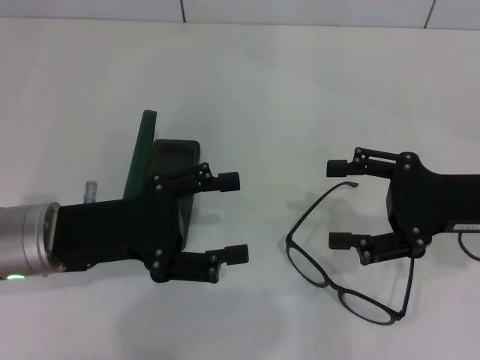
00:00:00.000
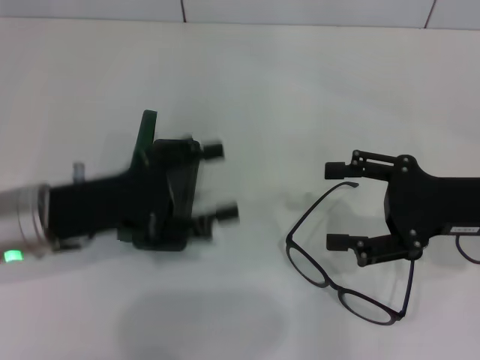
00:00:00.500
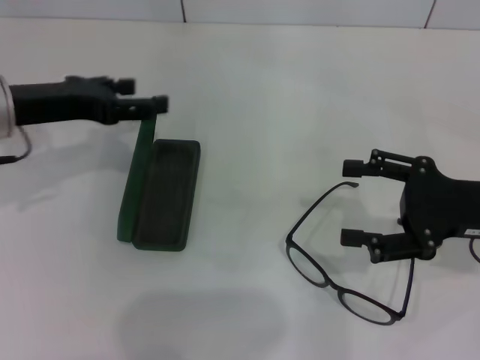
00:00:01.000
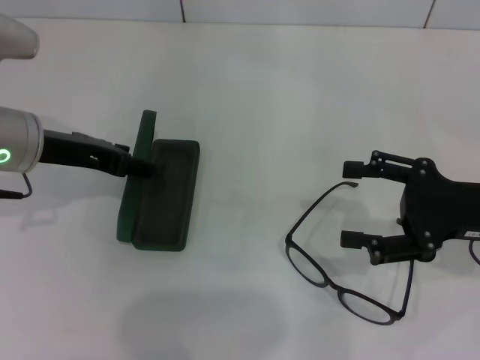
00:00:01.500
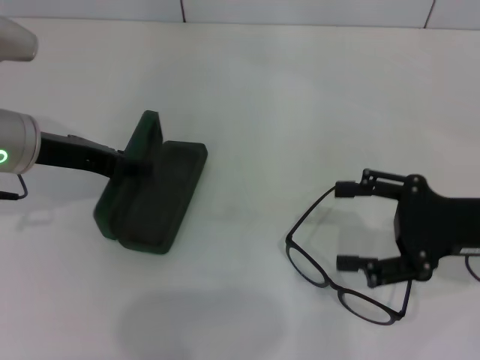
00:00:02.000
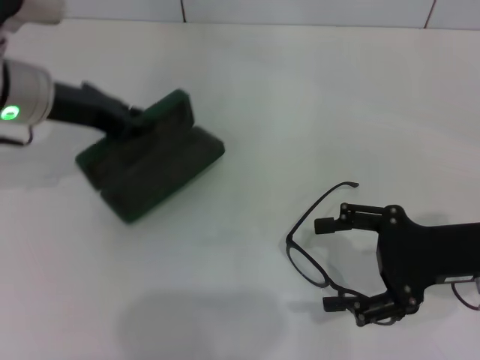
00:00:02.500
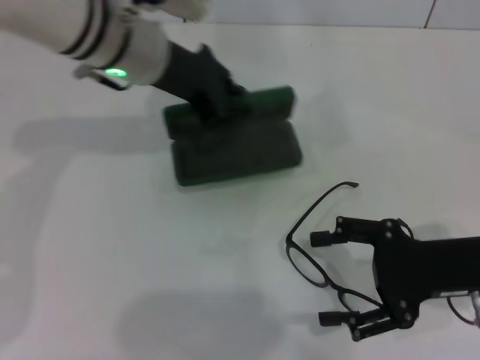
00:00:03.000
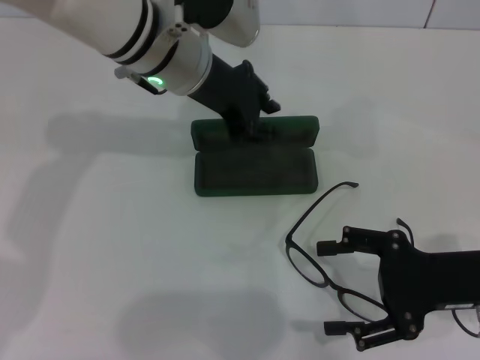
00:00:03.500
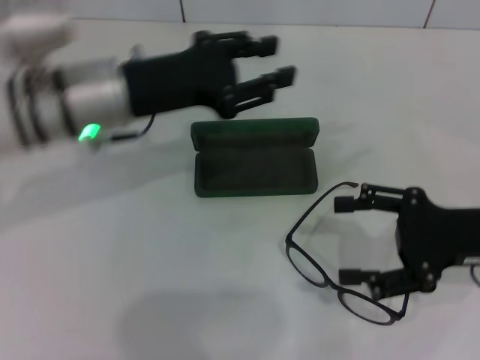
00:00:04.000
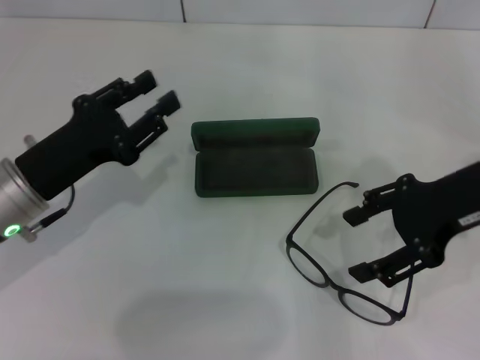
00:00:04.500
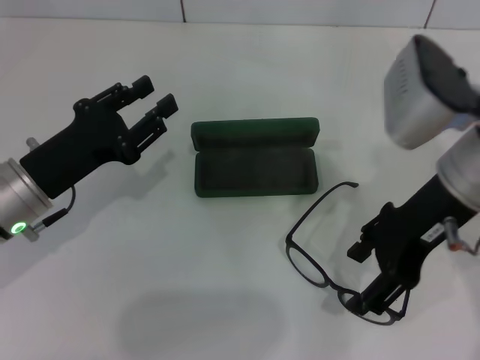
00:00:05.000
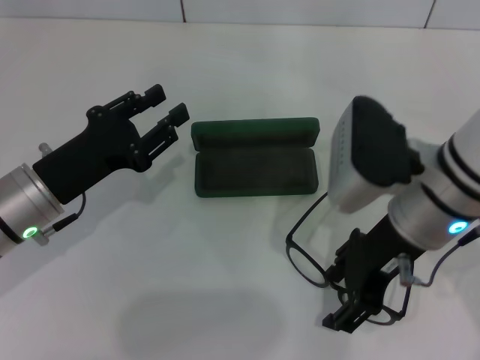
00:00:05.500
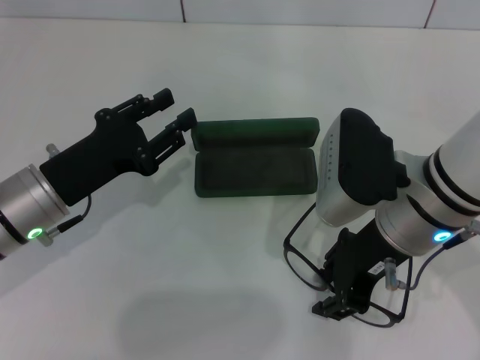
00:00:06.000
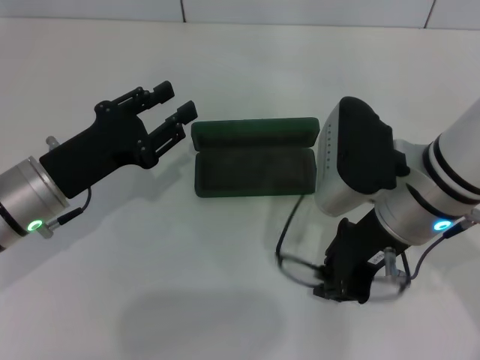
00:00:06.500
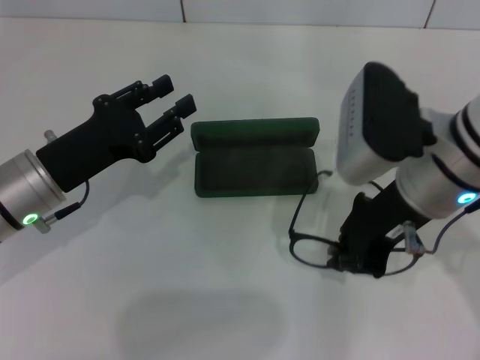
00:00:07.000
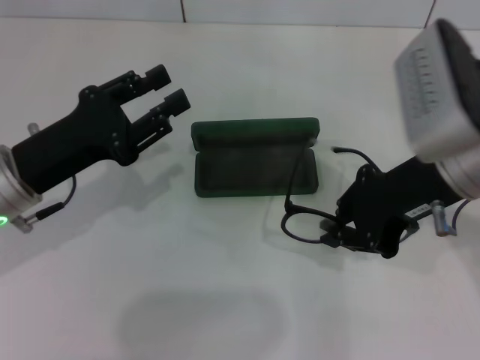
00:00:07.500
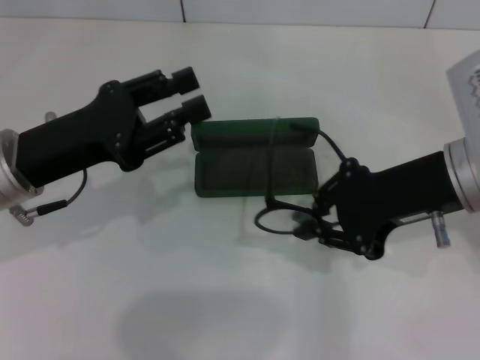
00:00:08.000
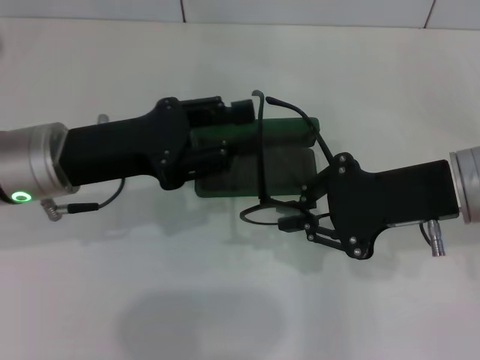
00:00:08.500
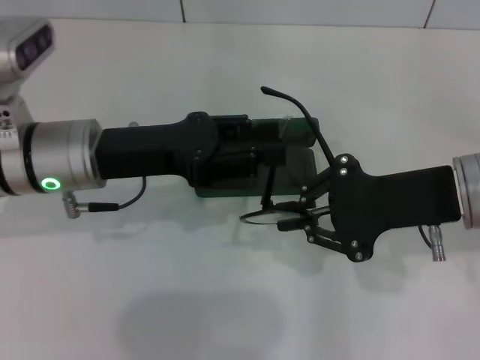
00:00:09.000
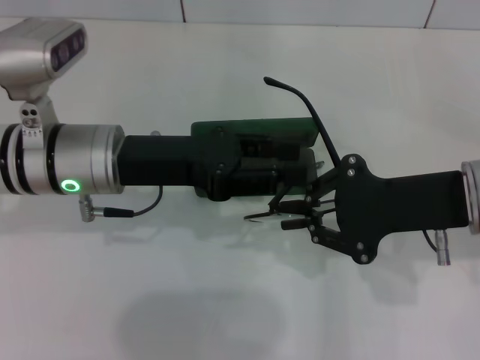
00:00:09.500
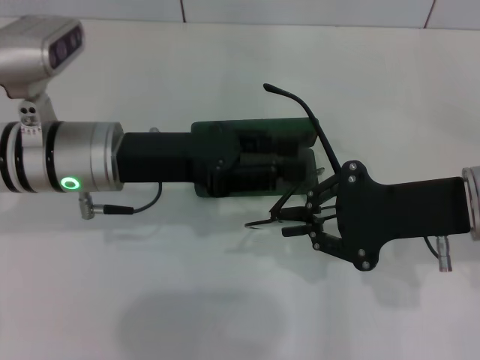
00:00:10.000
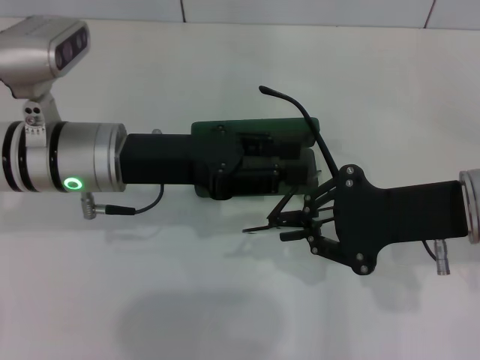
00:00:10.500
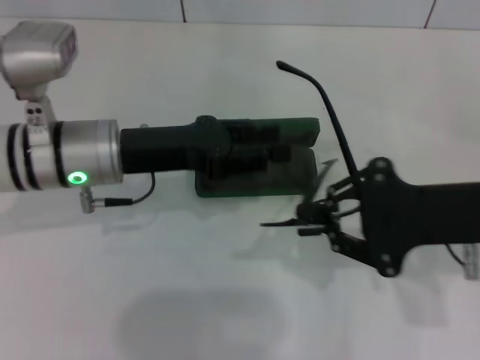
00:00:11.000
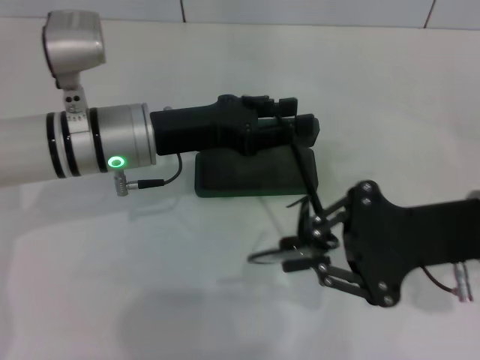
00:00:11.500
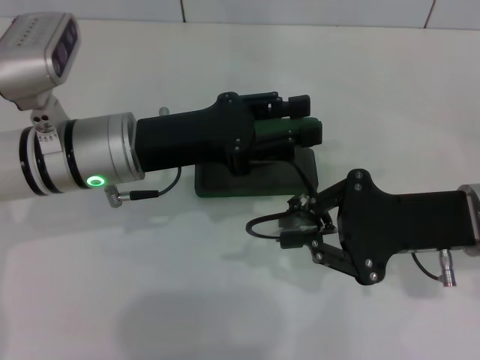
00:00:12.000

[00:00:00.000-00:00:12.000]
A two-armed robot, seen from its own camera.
Step, 00:00:00.000 to 00:00:02.000: Grab the glasses case with your left hand.
Step, 00:00:02.500 to 00:00:03.500: Place the glasses case in the center of the table with your left hand.
Step, 00:00:04.000 to 00:00:06.500: Grab the eyeglass frame with your right hand.
00:00:00.000 to 00:00:02.000: The left gripper heads forward, covering some 10 cm.
00:00:02.000 to 00:00:04.000: The left gripper heads to the right, covering approximately 10 cm, and closes and opens again.
00:00:04.000 to 00:00:06.000: The right gripper shifts roughly 15 cm to the left, and closes its fingers, while the left gripper shifts some 15 cm downward, backward and to the left.
00:00:06.000 to 00:00:08.000: The right gripper is displaced to the right by approximately 5 cm, and closes. The left gripper shifts approximately 5 cm upward.
00:00:08.000 to 00:00:10.000: The left gripper shifts approximately 5 cm to the right.

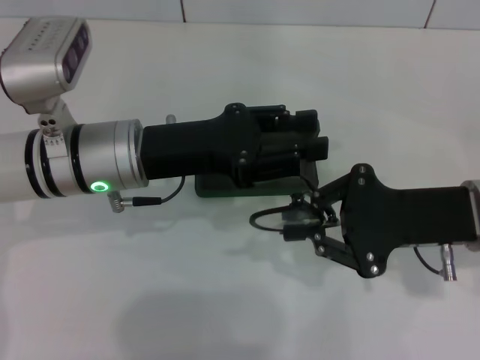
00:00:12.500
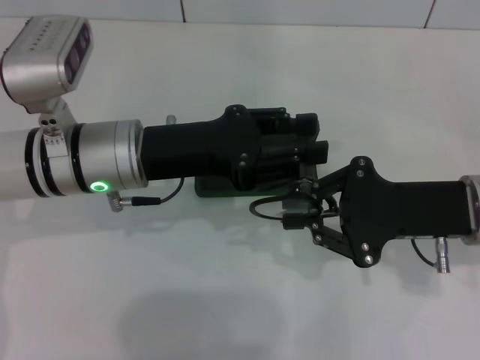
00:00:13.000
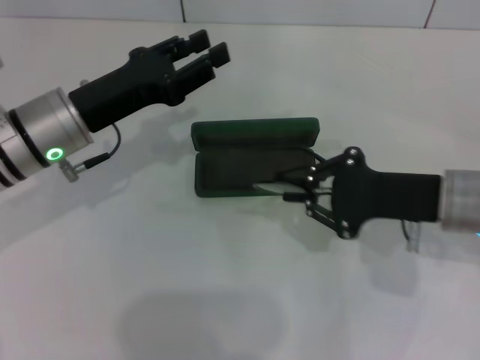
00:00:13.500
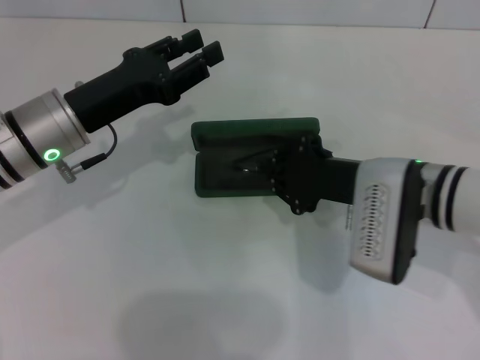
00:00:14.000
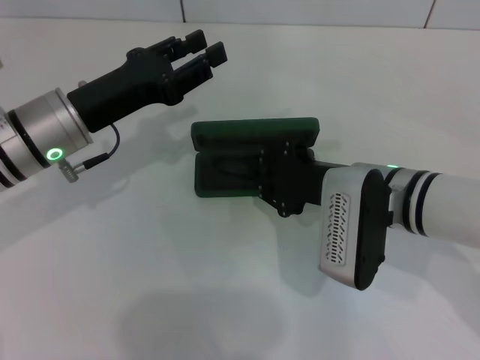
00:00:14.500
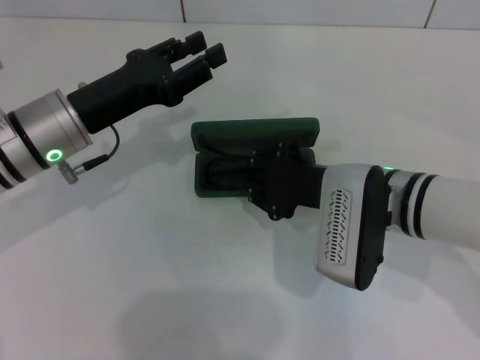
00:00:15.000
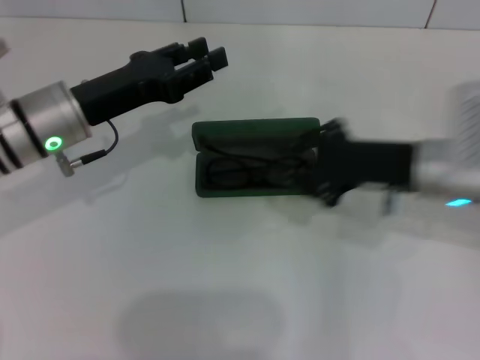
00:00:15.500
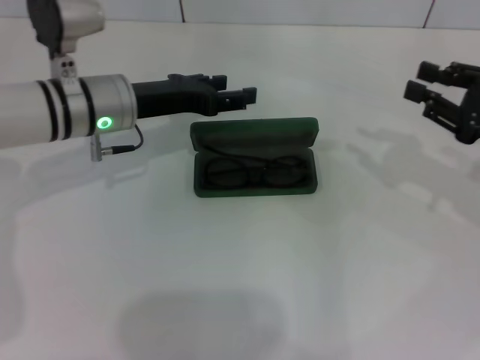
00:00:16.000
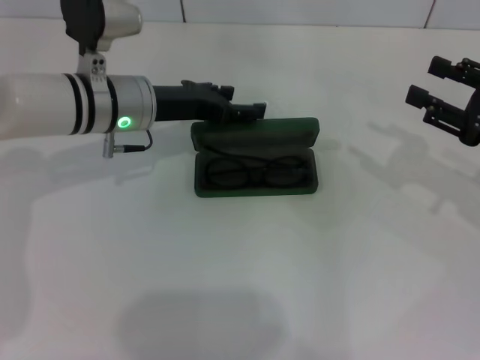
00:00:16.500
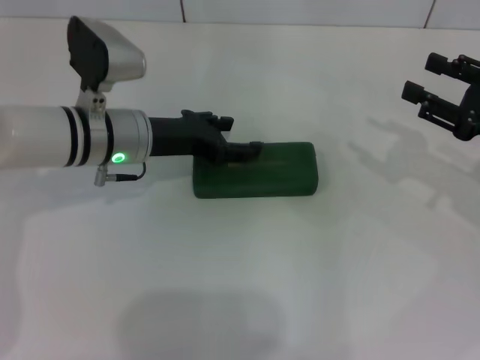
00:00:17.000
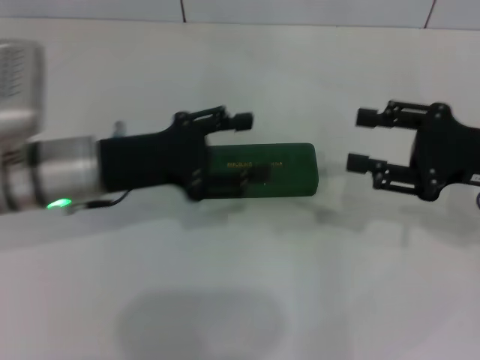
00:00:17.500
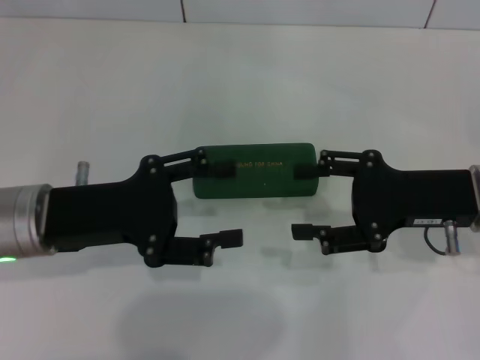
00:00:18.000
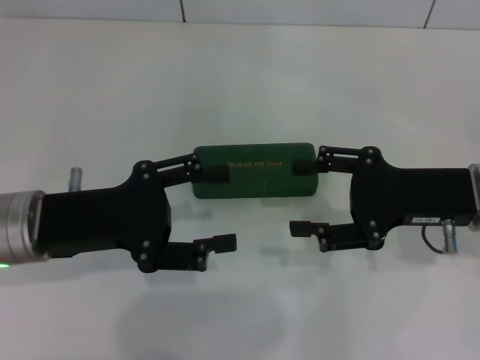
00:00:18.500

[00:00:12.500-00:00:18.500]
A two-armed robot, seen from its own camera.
Step, 00:00:13.500 to 00:00:14.500: Put the glasses into the case with your right hand.
Step, 00:00:15.000 to 00:00:16.500: Close the glasses case with your left hand.
00:00:12.500 to 00:00:14.500: The right gripper shifts roughly 10 cm to the left; the left gripper travels to the left by roughly 5 cm.
00:00:14.500 to 00:00:16.500: The left gripper is displaced forward and to the right by about 10 cm, while the right gripper shifts some 20 cm to the right, and opens.
00:00:16.500 to 00:00:18.500: The left gripper moves backward and to the left, about 15 cm, while the right gripper is displaced to the left by roughly 10 cm.

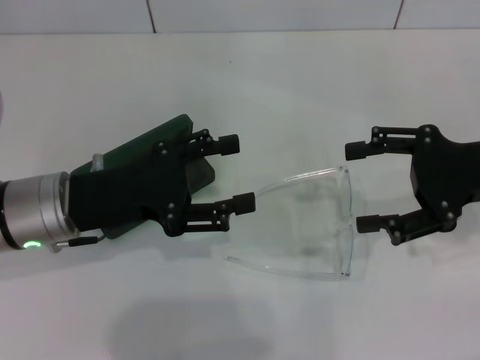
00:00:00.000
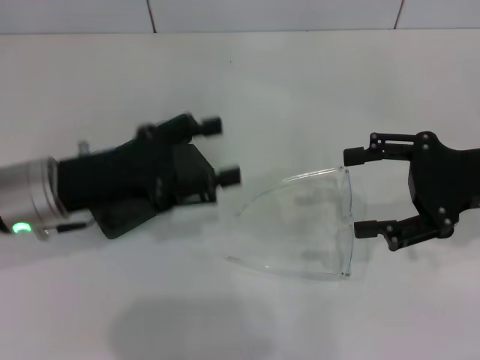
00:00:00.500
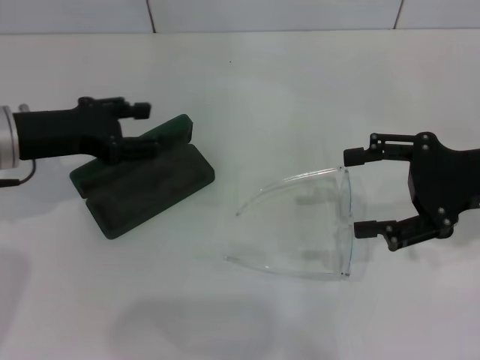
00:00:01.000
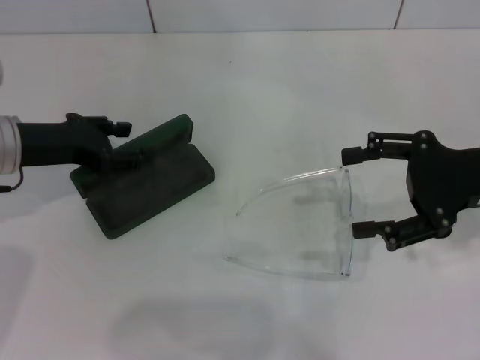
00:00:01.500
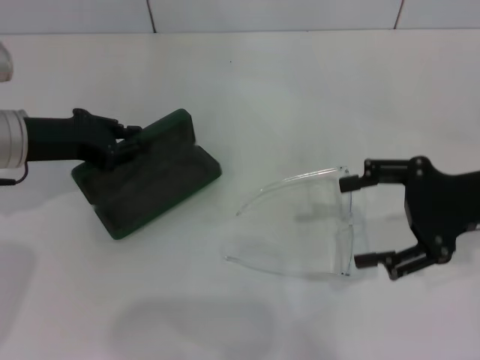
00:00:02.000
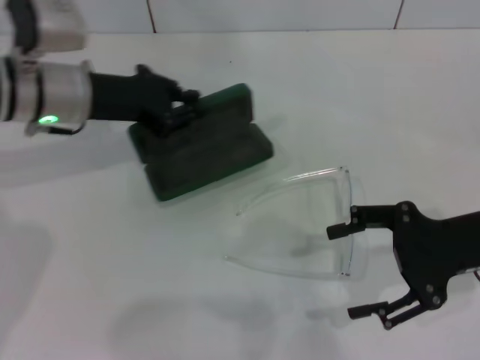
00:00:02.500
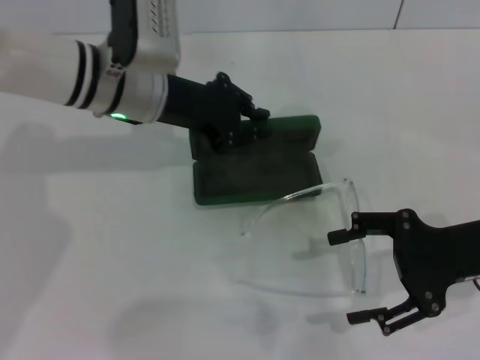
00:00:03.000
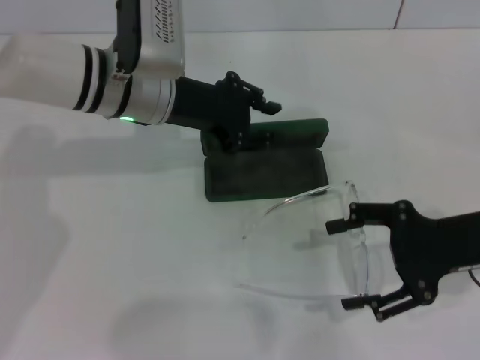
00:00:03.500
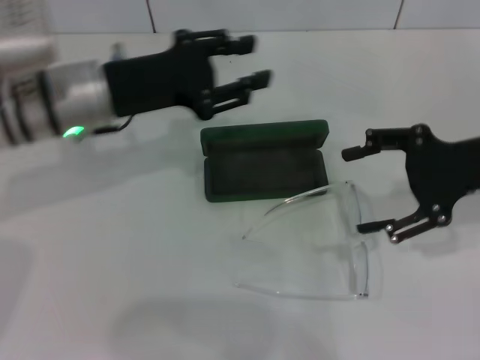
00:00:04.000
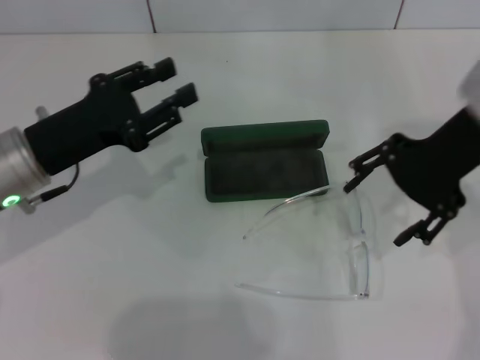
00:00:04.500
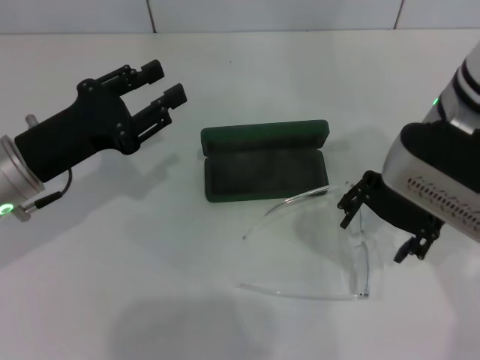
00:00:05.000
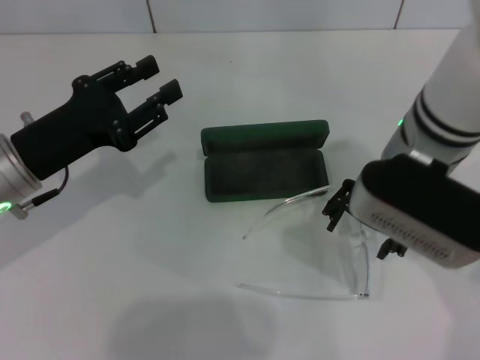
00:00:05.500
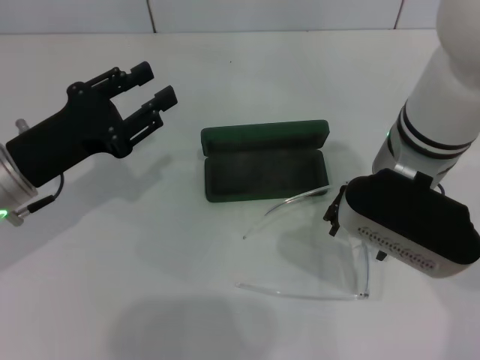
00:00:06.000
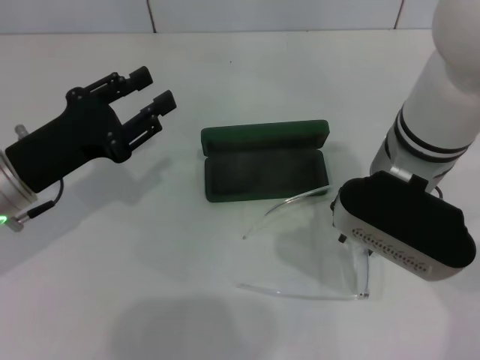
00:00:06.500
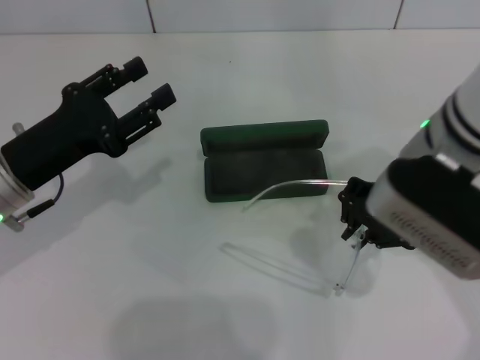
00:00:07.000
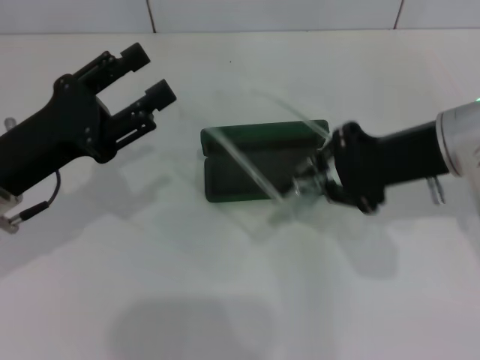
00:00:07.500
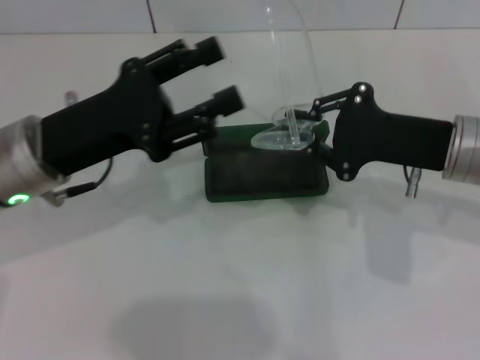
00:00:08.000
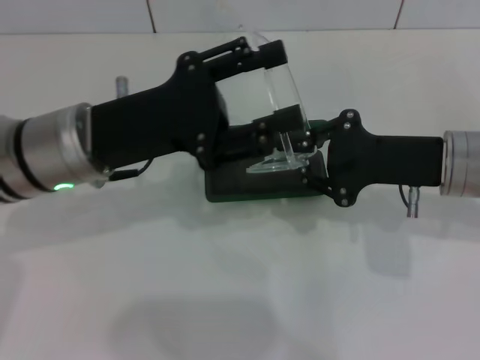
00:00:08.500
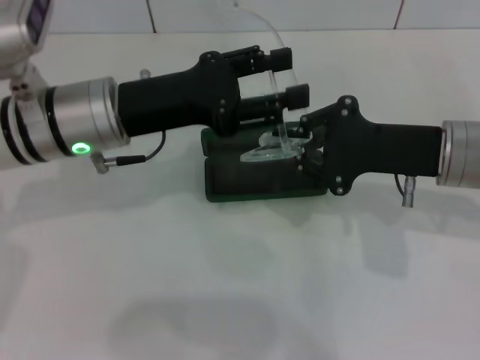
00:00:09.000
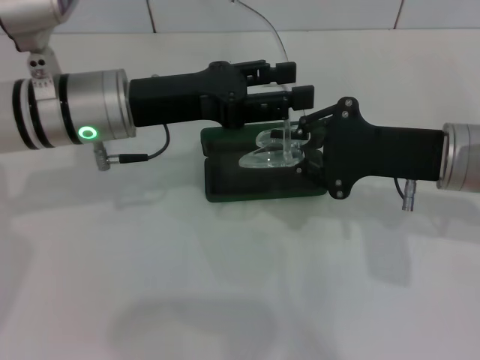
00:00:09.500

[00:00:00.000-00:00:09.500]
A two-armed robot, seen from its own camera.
Step, 00:00:00.000 to 00:00:01.500: Grab the glasses case with your left hand.
Step, 00:00:02.000 to 00:00:03.000: Place the glasses case in the center of the table with your left hand.
Step, 00:00:03.500 to 00:00:06.500: Grab the eyeglass frame with your right hand.
00:00:00.000 to 00:00:02.000: The left gripper travels forward and to the left by approximately 10 cm, and closes.
00:00:02.000 to 00:00:04.000: The left gripper travels to the right by roughly 10 cm.
00:00:04.000 to 00:00:05.500: The right gripper is displaced to the left by some 15 cm, while the left gripper goes about 10 cm backward and to the left.
00:00:05.500 to 00:00:07.500: The right gripper moves to the right, about 5 cm, and closes.
00:00:07.500 to 00:00:09.500: The left gripper moves to the right and forward, approximately 10 cm.
